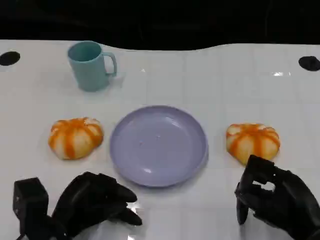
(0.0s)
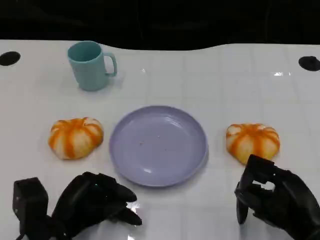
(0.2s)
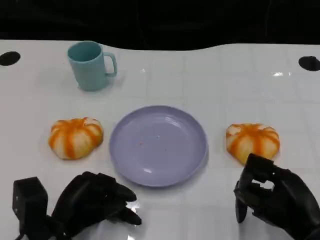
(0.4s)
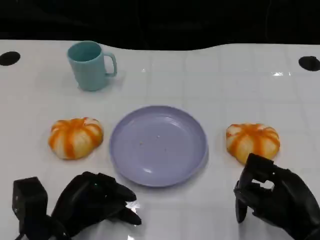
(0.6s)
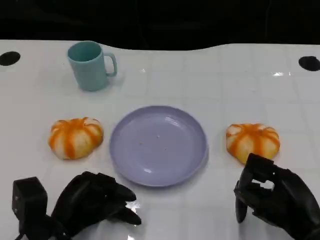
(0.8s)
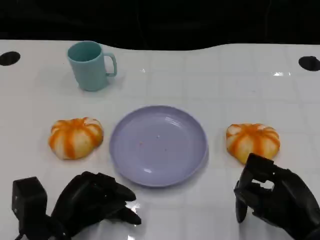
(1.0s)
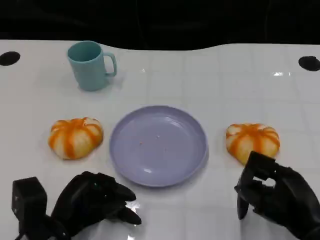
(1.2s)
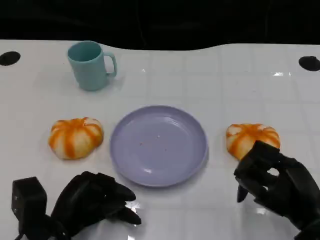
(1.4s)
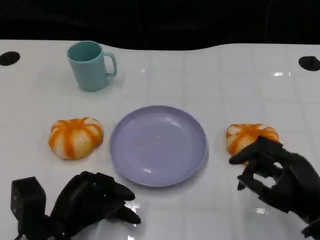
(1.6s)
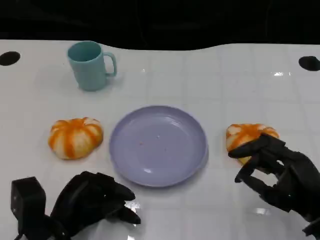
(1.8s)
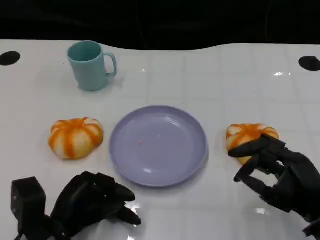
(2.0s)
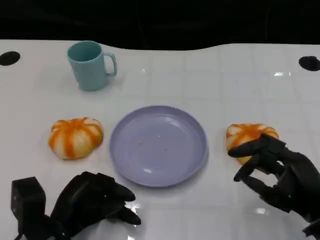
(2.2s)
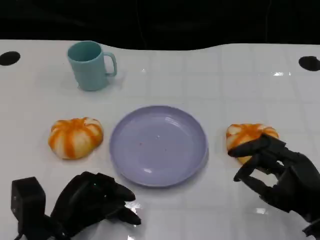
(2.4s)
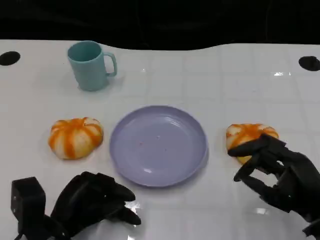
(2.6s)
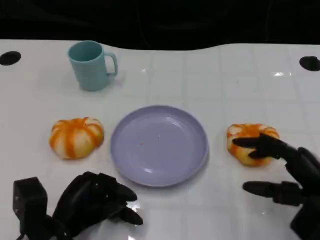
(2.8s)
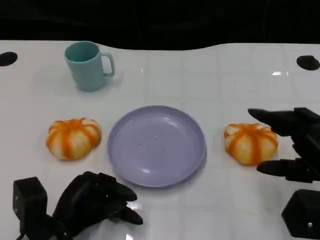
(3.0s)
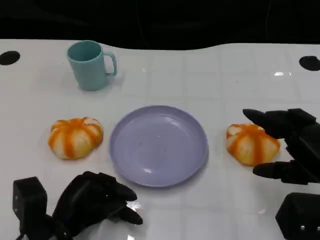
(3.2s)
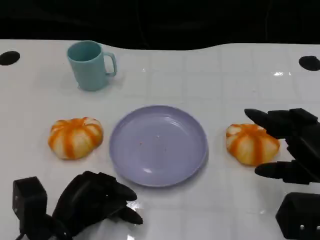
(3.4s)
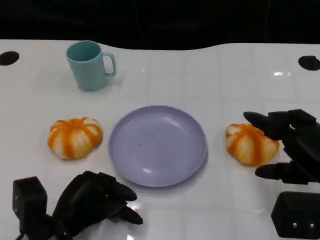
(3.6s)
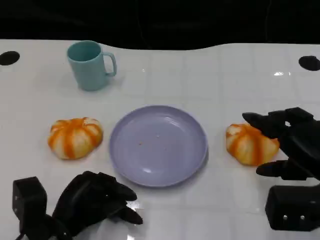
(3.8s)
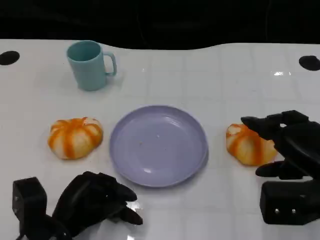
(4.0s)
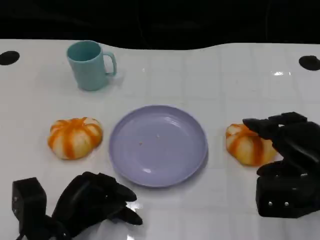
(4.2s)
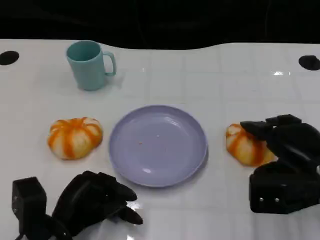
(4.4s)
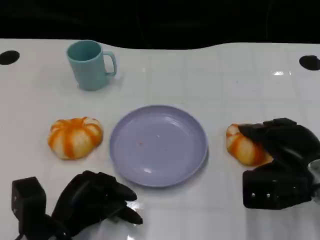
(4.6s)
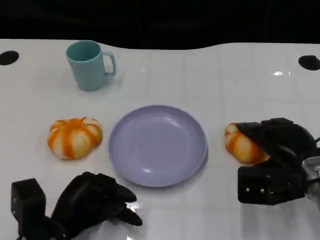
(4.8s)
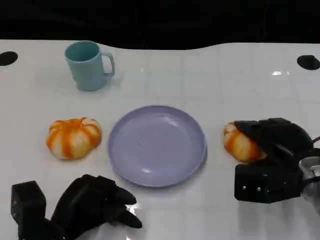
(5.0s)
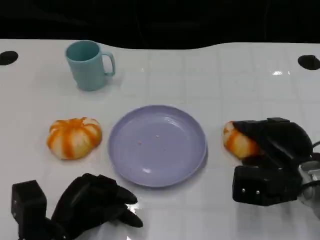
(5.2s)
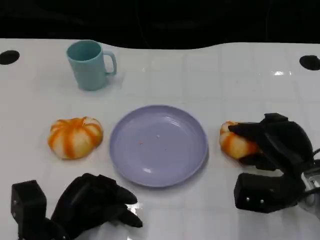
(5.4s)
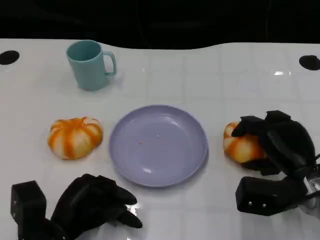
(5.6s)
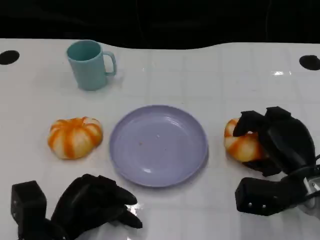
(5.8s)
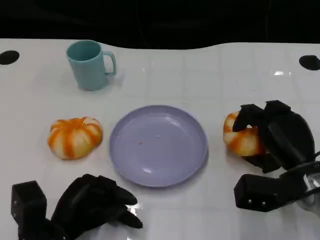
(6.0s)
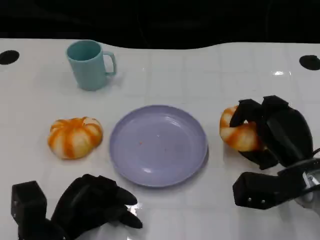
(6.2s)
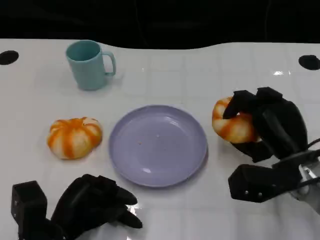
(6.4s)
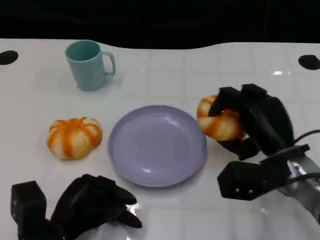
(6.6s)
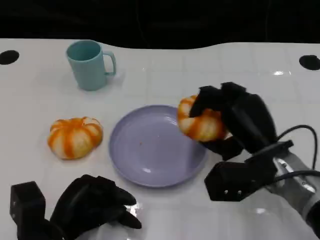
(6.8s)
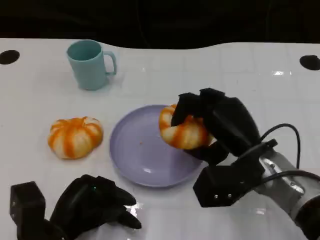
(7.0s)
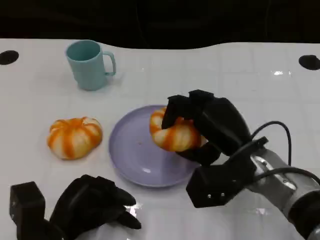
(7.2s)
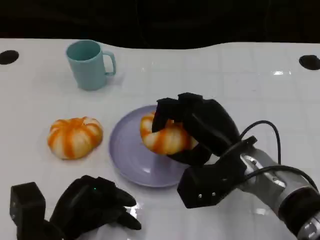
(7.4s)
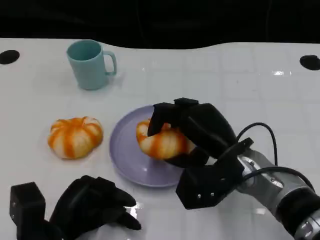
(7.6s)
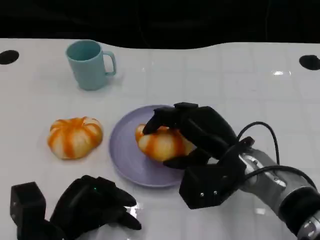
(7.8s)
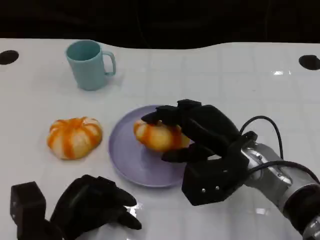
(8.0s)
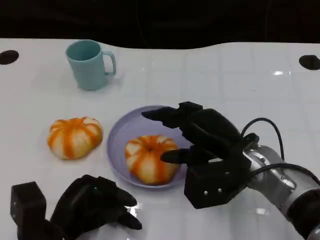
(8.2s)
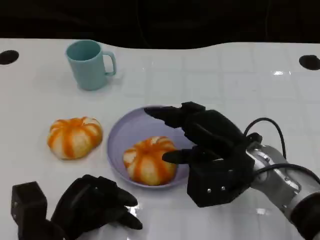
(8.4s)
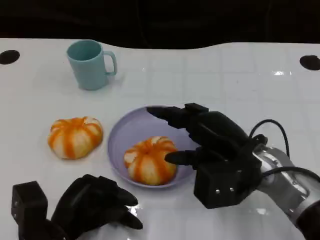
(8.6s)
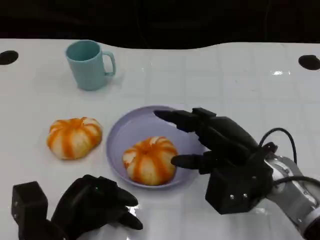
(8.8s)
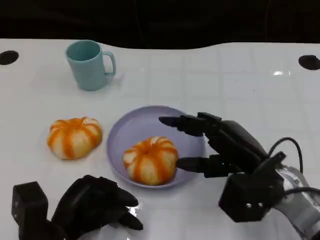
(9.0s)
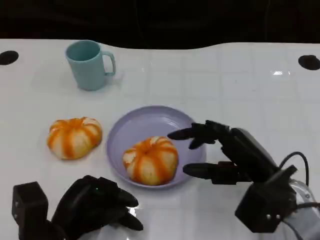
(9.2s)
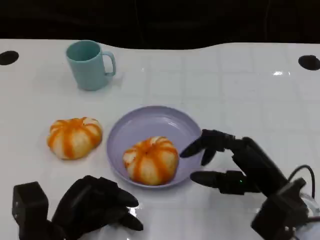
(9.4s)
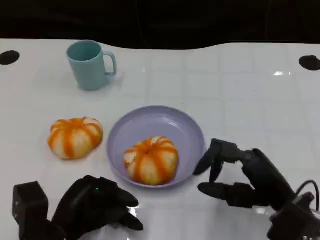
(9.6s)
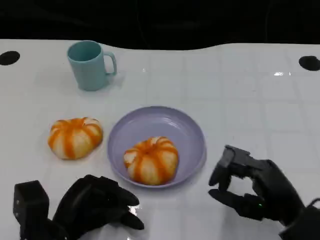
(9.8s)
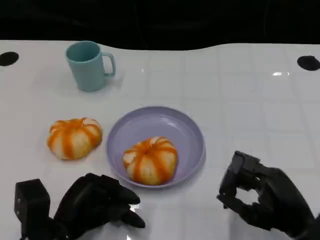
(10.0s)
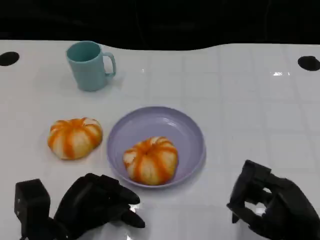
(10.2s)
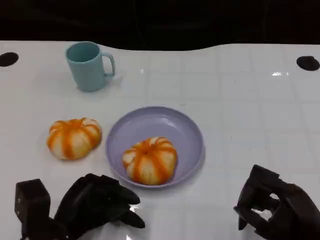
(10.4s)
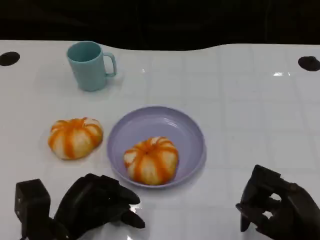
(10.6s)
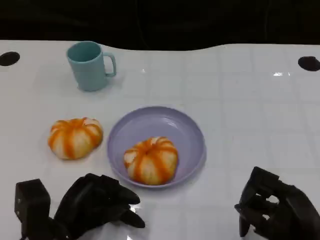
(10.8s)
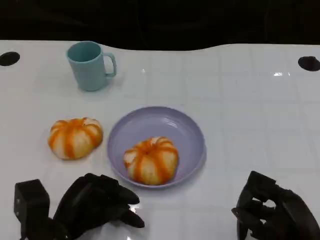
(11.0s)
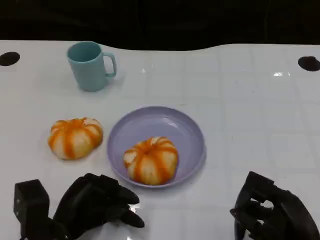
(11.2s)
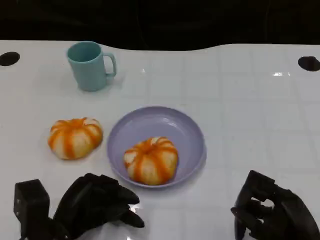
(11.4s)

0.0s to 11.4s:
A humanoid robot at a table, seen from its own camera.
Task of the whole recording: Grasp the bread from the table and place it into the plate.
0.0s to 1.4s: The hands move only a little.
2.8s to 4.2s: The right hand moves forward, about 5 cm.
4.2s to 5.6s: The right hand shifts by about 5 cm.
5.6s to 7.2s: The right hand heads to the left and upward, covering about 10 cm.
7.2s to 8.6s: The hands move only a little.
8.6s to 10.0s: The right hand heads backward and to the right, covering some 10 cm.
10.0s to 11.4s: The hands move only a little.

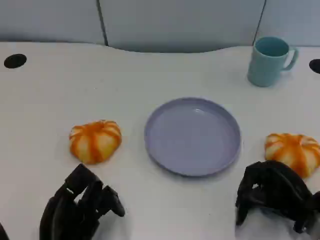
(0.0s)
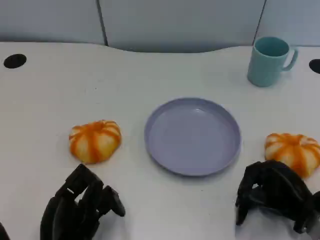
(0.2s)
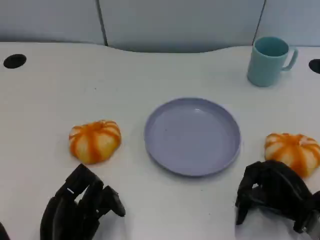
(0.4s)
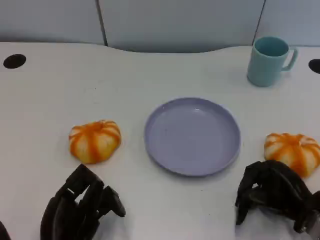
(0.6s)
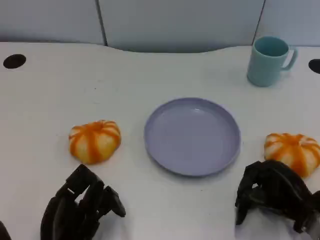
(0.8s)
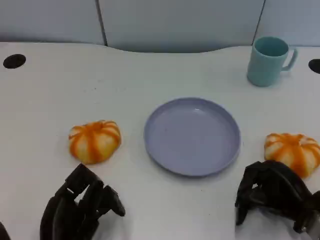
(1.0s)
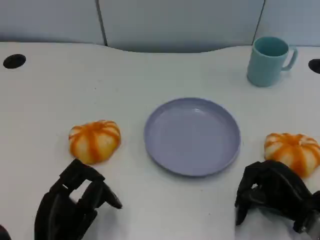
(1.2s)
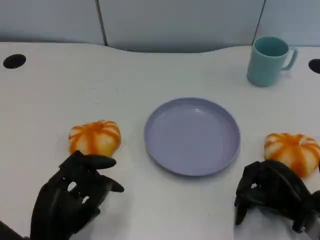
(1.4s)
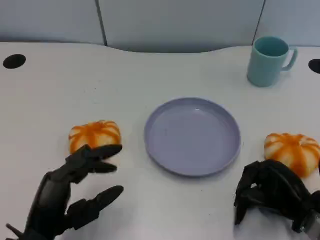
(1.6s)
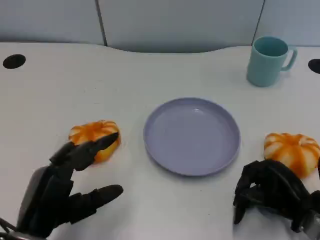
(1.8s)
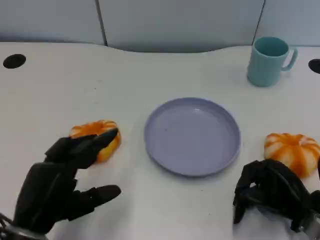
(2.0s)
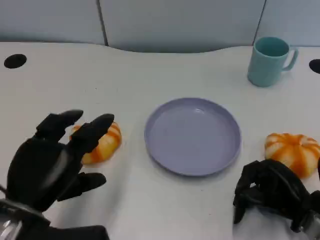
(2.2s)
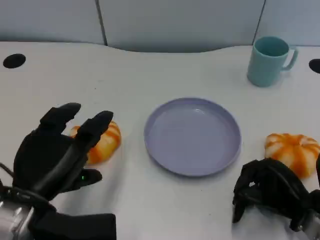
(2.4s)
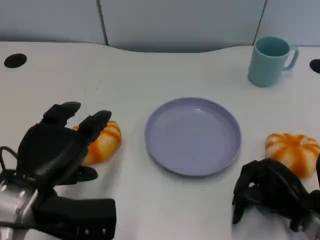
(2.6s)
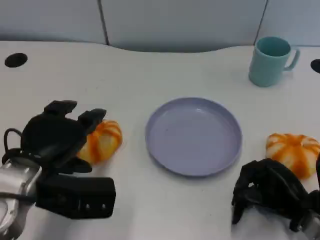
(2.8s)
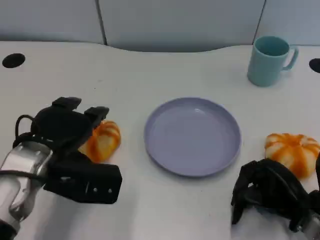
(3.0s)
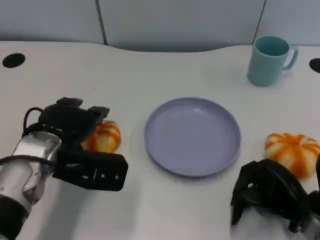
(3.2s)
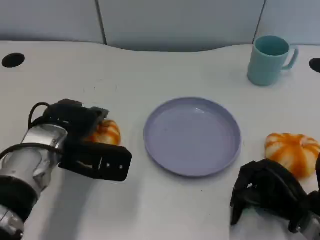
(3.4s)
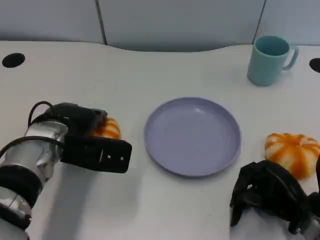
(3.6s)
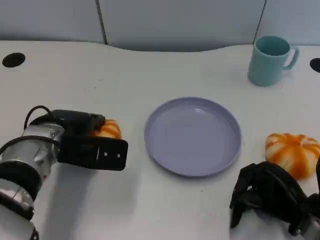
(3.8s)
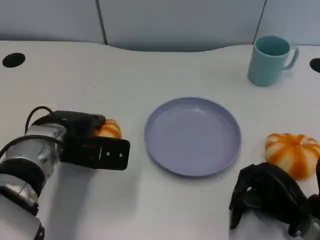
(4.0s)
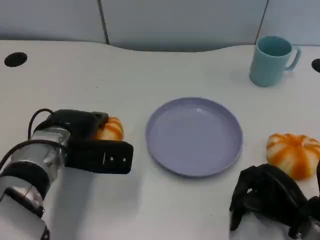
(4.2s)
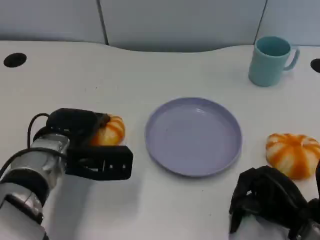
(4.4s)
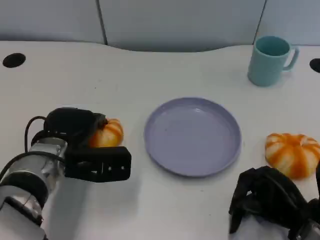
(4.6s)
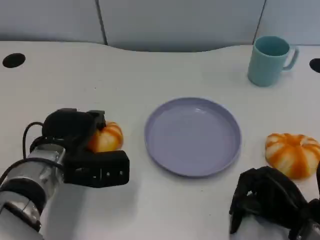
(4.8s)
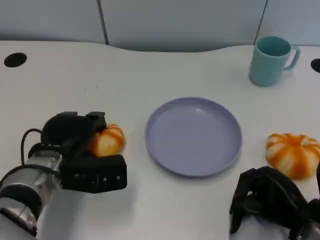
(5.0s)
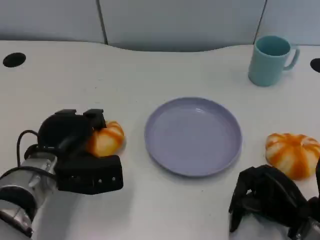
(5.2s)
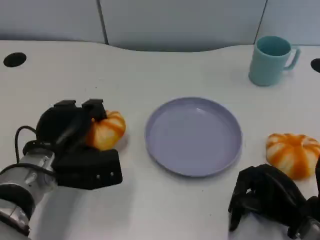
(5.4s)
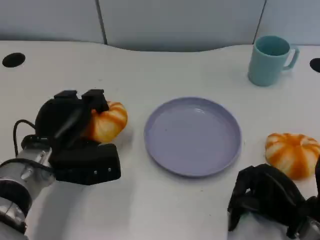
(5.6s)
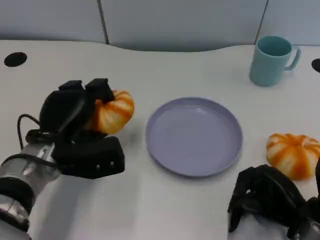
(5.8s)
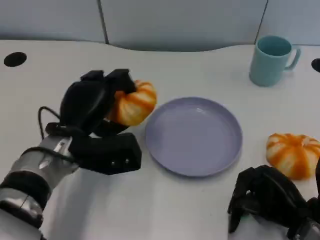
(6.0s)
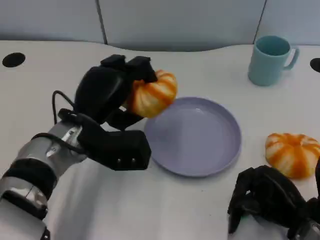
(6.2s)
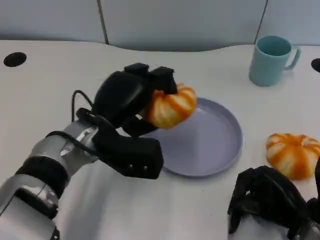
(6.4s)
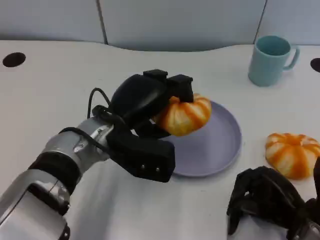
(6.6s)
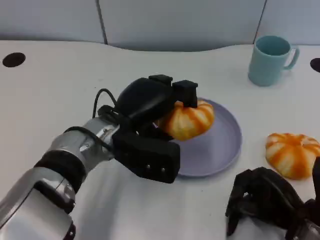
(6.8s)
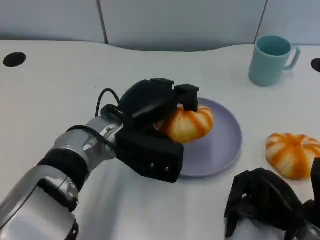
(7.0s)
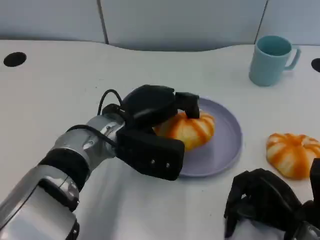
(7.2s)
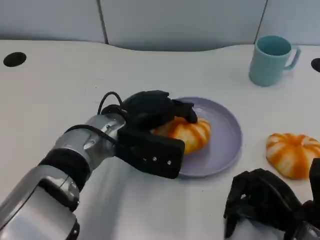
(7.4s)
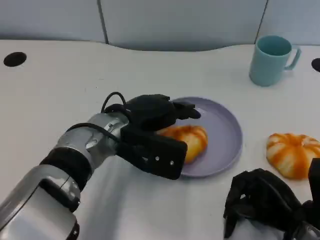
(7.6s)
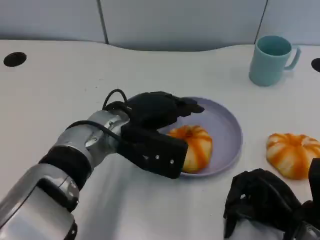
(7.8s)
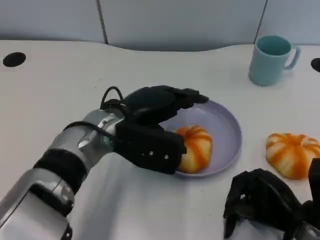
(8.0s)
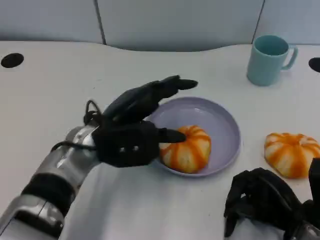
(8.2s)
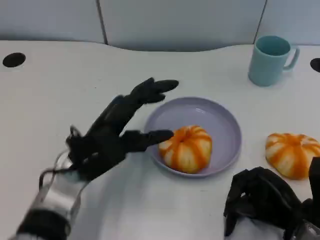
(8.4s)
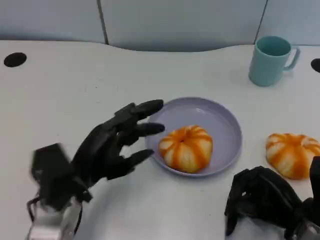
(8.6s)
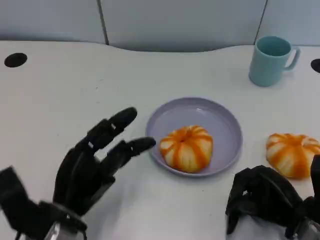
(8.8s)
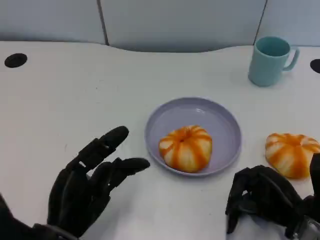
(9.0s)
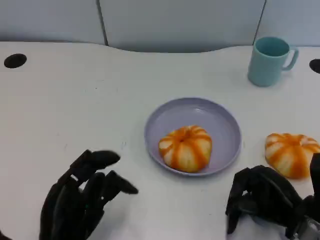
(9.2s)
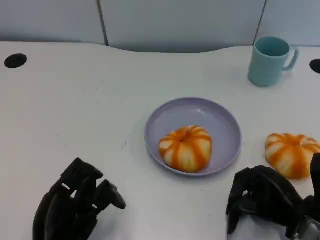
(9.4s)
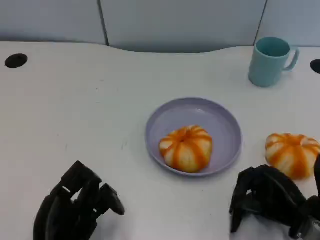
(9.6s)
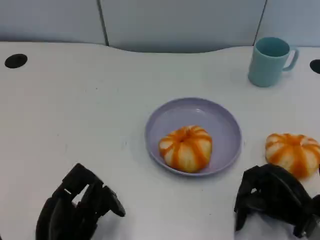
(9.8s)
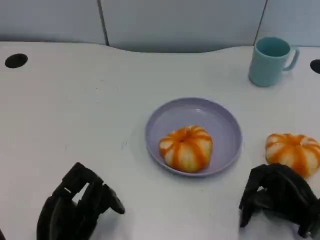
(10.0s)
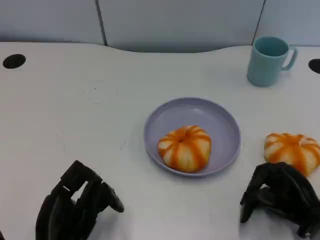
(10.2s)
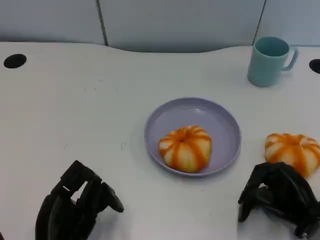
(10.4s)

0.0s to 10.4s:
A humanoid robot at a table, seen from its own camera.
Task of the whole recording: Grasp the bread from the table and place it into the plate.
1.4s to 3.0s: The left hand heads forward and upward, covering roughly 15 cm.
3.0s to 4.4s: The left hand ends up roughly 5 cm from where it was.
6.0s to 7.4s: The left hand heads to the right, covering some 5 cm.
7.4s to 9.0s: The left hand moves backward, to the left and downward, about 20 cm.
9.0s to 10.4s: There are only small adjustments of the hands.

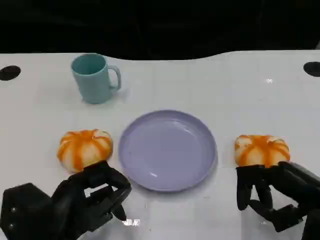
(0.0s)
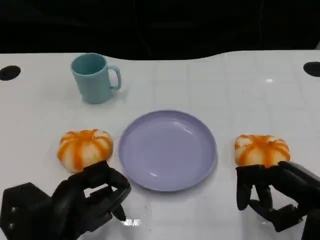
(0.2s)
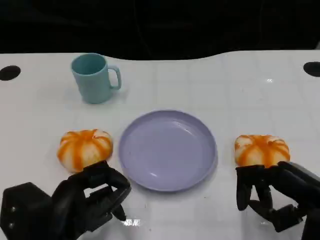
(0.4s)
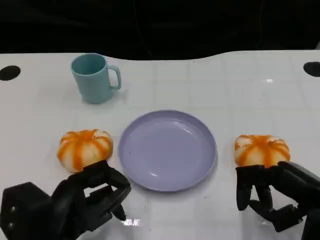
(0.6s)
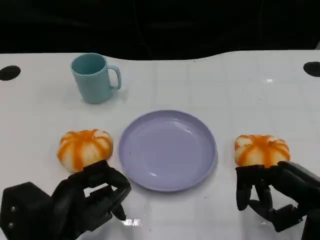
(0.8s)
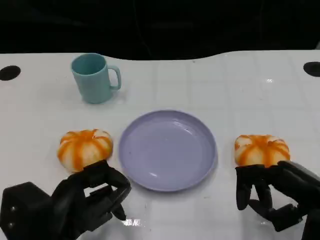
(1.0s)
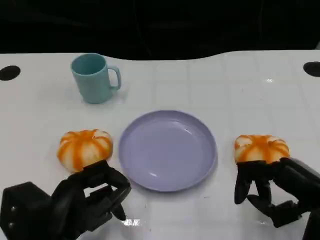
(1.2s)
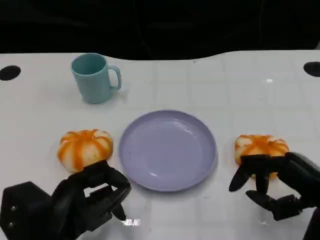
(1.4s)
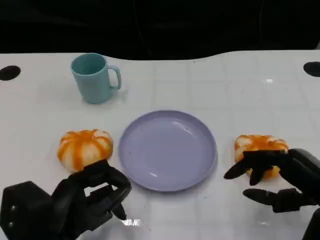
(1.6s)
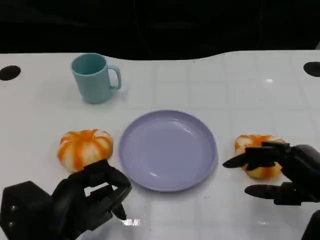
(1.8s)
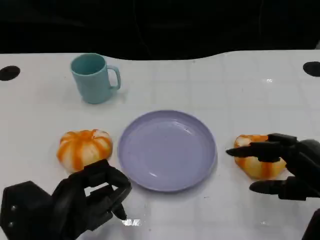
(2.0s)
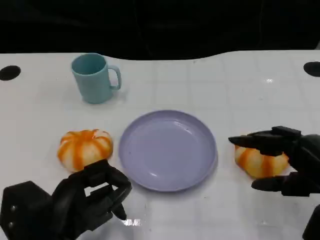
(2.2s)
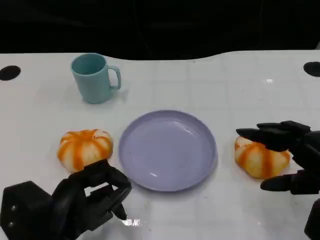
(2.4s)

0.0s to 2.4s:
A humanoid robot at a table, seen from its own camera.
Task of the whole recording: Grasp the bread from the table and place it into the plate.
0.0s to 1.2s: Both hands stay about where they are.
1.2s to 2.4s: The hands stay close to where they were, moving slightly.
